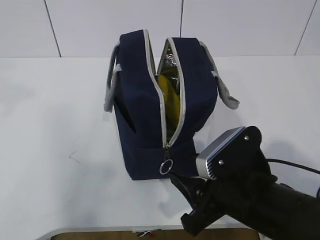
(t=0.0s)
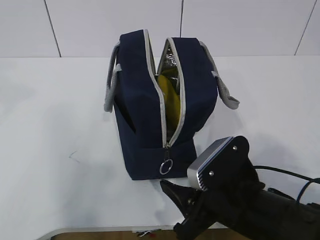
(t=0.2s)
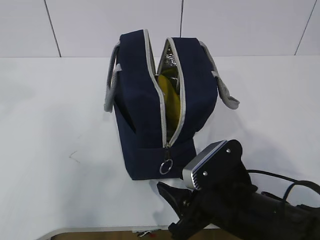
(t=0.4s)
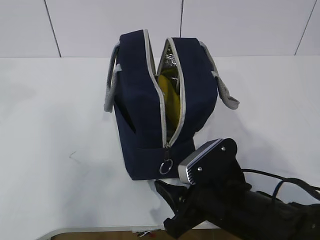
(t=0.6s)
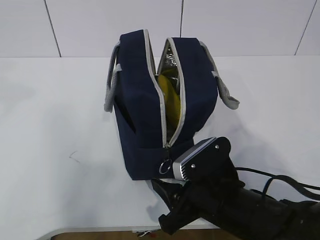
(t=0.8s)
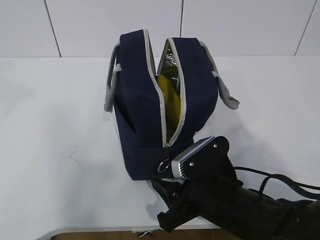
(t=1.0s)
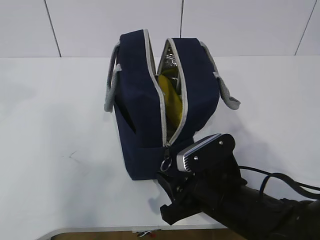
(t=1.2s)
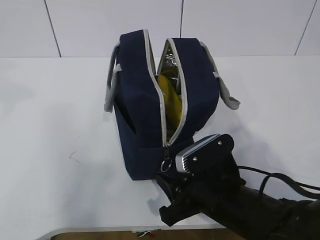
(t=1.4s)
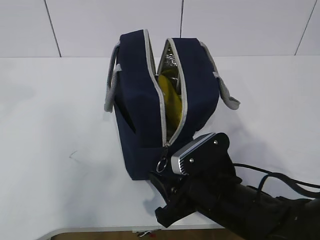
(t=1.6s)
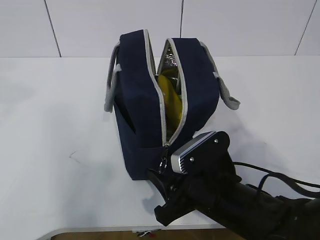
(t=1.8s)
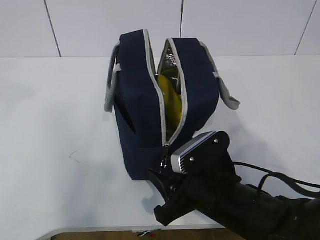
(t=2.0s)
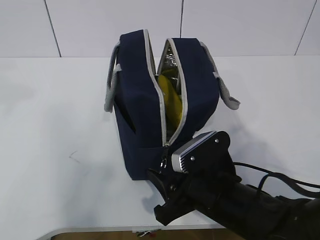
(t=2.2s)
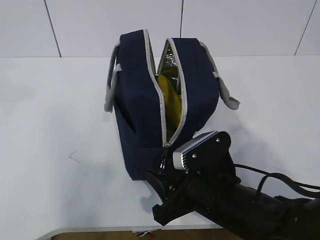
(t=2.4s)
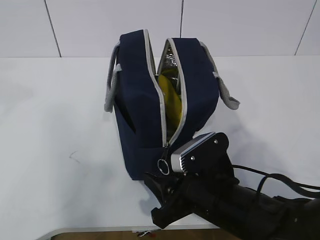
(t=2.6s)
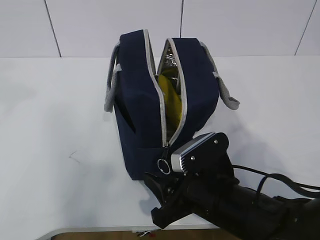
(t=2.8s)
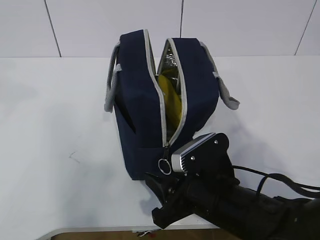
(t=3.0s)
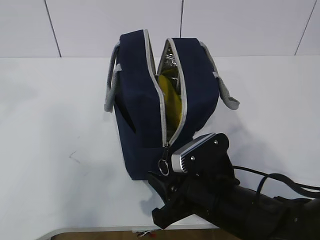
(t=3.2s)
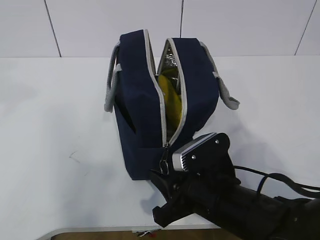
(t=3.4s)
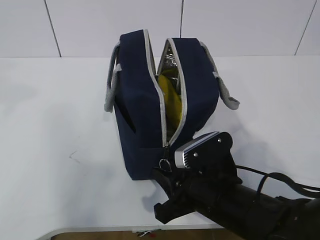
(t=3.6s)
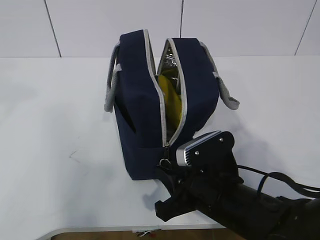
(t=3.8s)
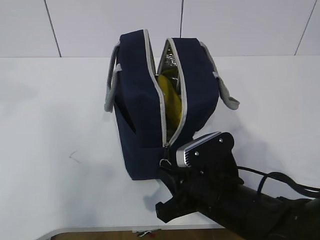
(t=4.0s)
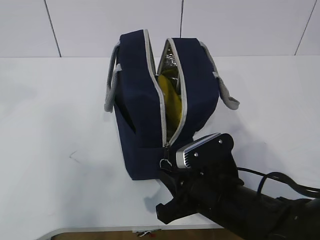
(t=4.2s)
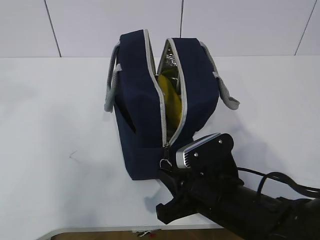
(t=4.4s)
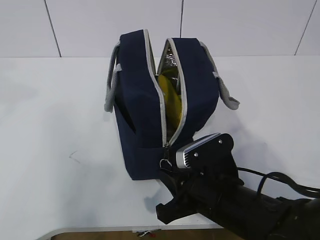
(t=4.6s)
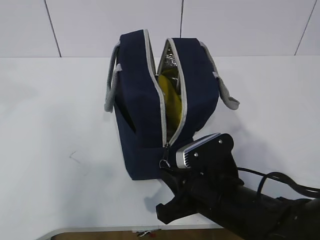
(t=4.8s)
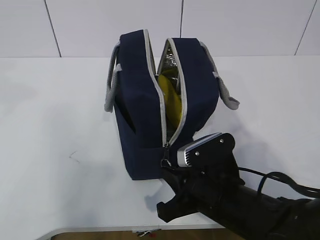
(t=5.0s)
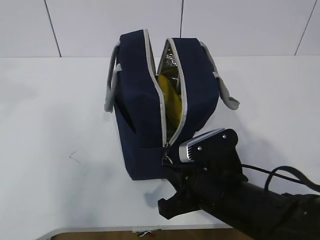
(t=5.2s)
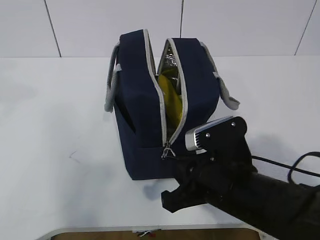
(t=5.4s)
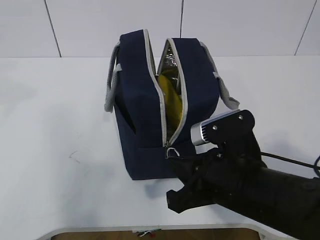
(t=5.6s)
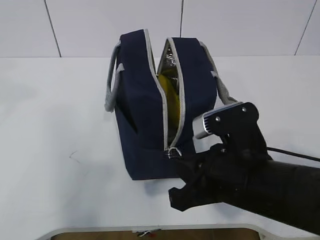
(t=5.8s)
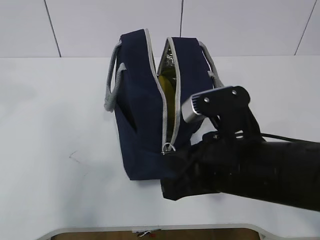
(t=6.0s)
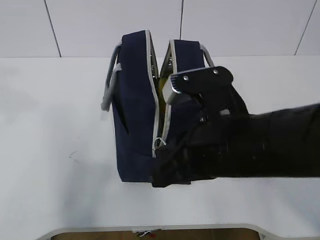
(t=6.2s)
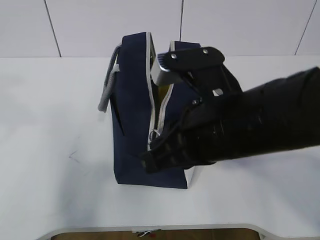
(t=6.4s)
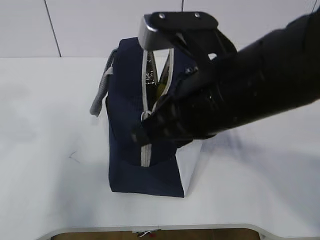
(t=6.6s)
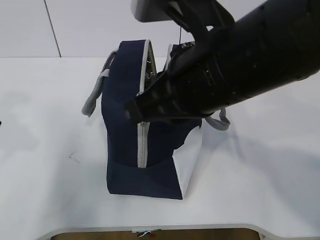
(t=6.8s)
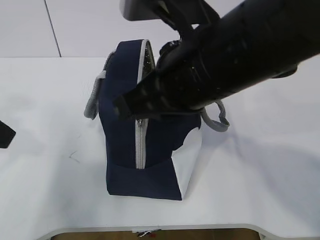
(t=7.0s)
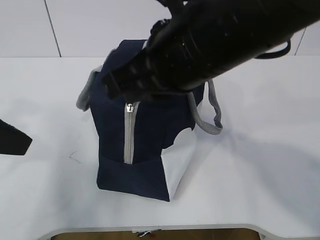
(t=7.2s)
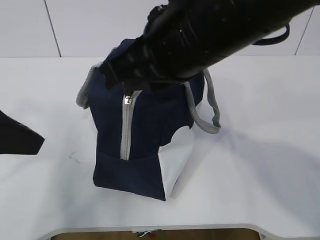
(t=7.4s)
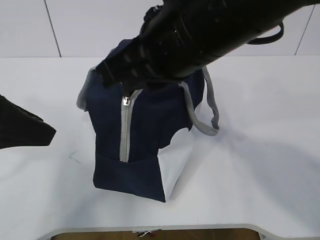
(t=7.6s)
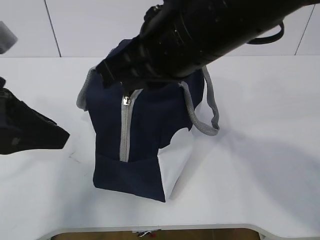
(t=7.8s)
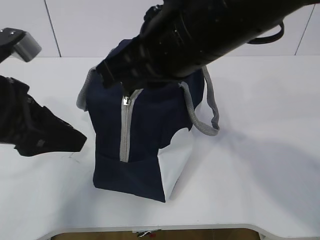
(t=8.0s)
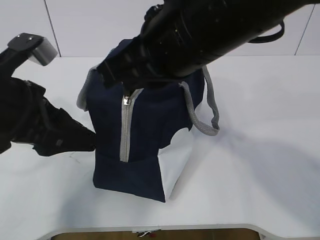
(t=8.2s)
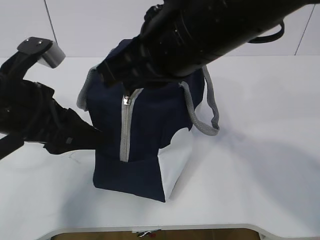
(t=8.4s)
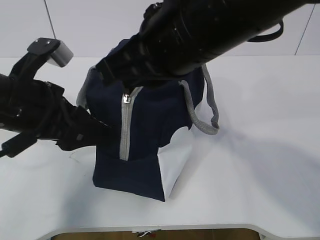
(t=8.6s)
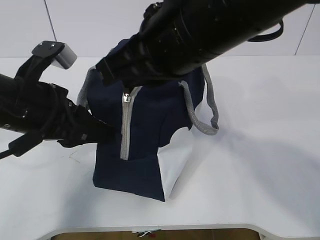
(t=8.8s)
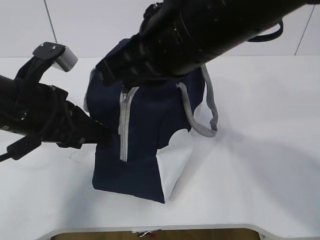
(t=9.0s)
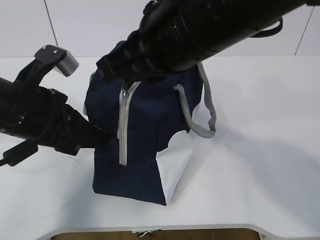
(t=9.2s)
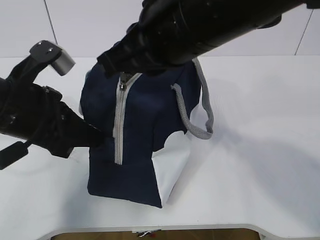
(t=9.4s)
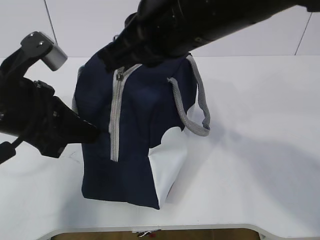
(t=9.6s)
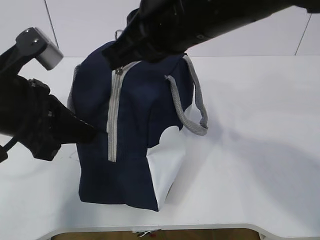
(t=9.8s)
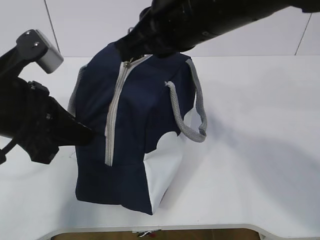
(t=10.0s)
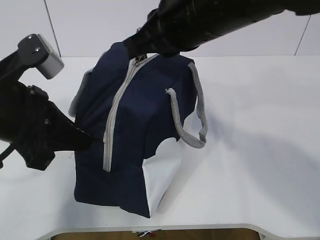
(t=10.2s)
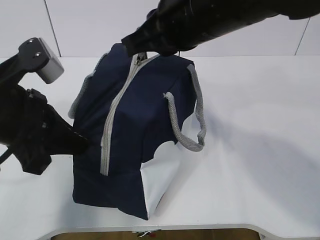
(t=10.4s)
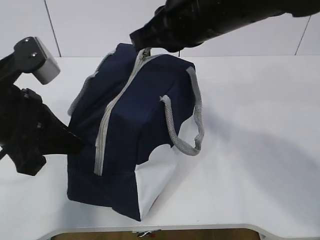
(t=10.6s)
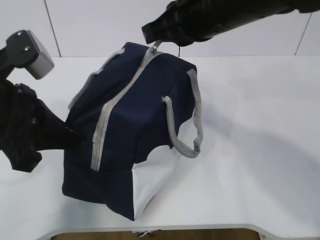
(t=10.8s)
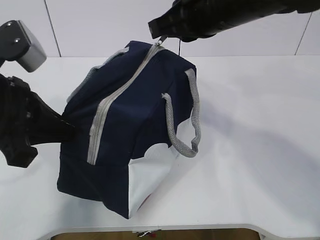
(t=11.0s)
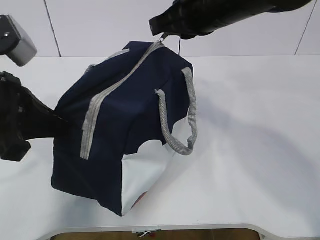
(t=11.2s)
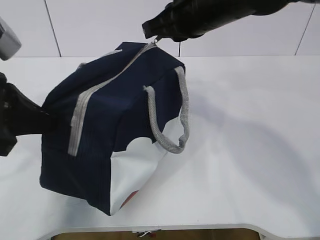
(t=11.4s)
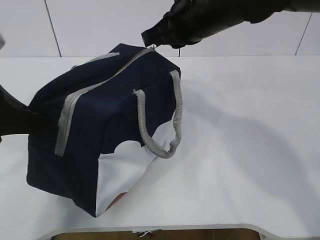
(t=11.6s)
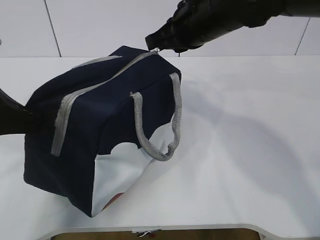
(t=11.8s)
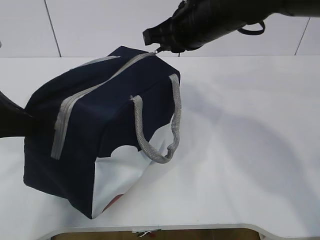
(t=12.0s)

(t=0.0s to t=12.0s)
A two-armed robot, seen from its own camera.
Step, t=4.4s - t=8.0s: Pull the zipper with your right hand.
Step, t=8.2s - t=8.8s: Grab the lunch bag with your left hand.
t=0.0s - t=1.6s: The right gripper moves roughly 5 cm.
t=1.6s - t=3.0s: The two grippers keep their place.
t=3.0s - t=4.4s: The right gripper closes its fingers.
t=4.4s - t=6.0s: The right gripper heads upward, covering some 10 cm.
t=6.0s - t=7.6s: The right gripper moves upward, about 15 cm; the left gripper goes roughly 15 cm downward.
t=7.6s - t=9.0s: The left gripper moves downward, to the right and forward, about 10 cm, and closes its fingers.
t=9.0s - t=10.4s: The right gripper shifts about 5 cm forward.
t=10.4s - t=12.0s: The right gripper goes approximately 10 cm forward. The left gripper is displaced to the left by roughly 5 cm.

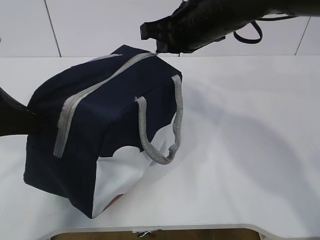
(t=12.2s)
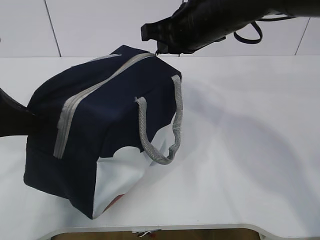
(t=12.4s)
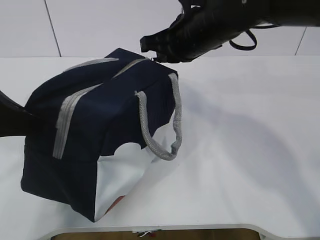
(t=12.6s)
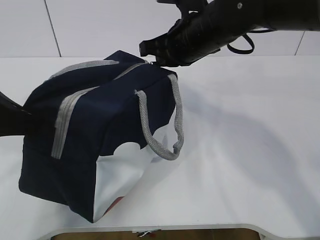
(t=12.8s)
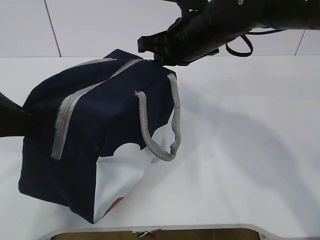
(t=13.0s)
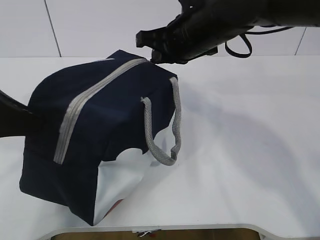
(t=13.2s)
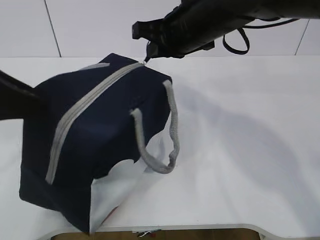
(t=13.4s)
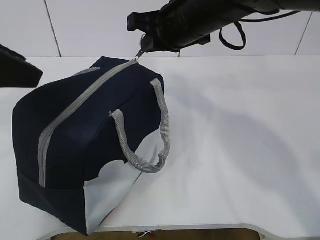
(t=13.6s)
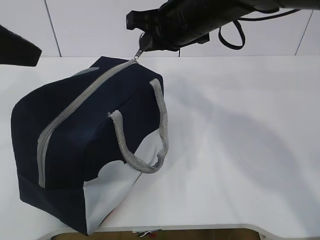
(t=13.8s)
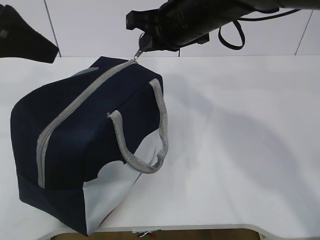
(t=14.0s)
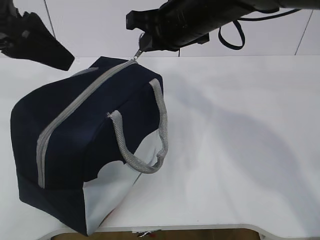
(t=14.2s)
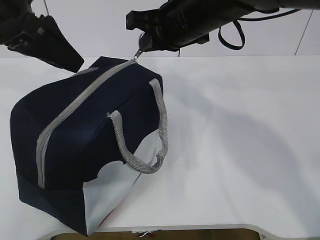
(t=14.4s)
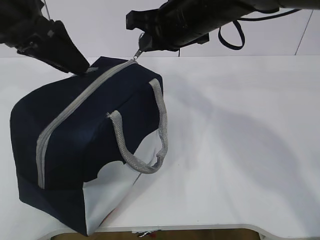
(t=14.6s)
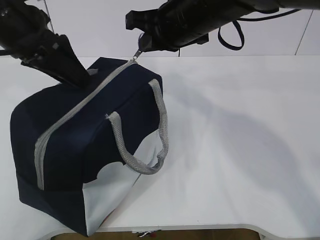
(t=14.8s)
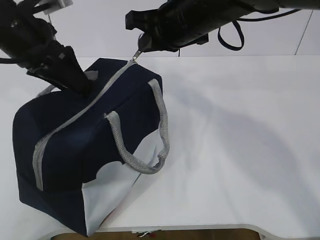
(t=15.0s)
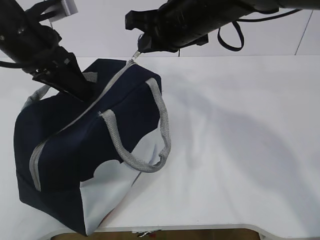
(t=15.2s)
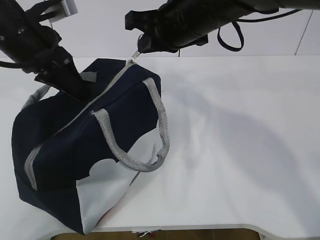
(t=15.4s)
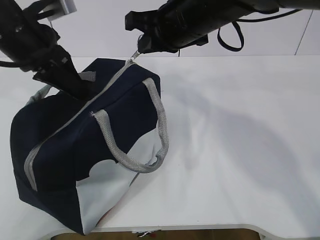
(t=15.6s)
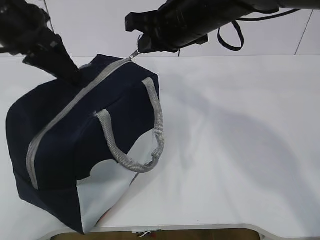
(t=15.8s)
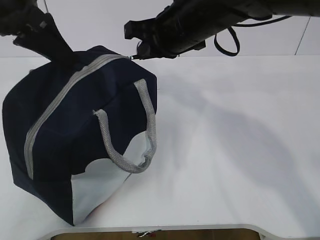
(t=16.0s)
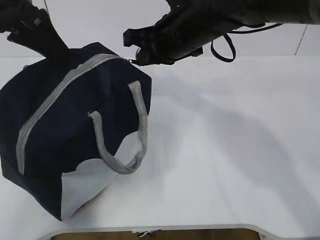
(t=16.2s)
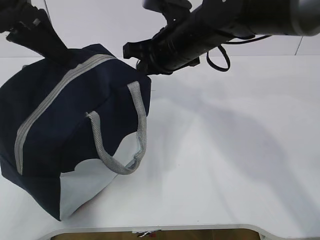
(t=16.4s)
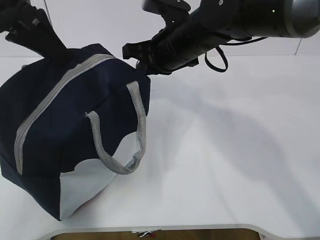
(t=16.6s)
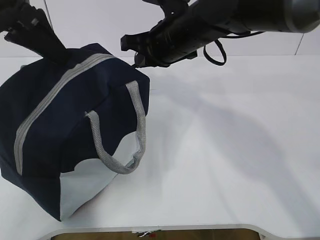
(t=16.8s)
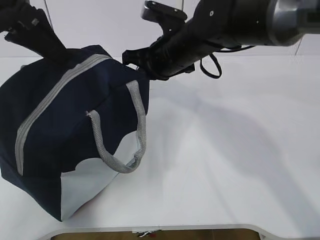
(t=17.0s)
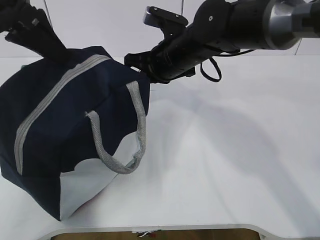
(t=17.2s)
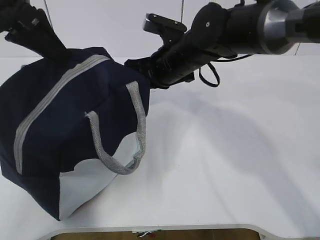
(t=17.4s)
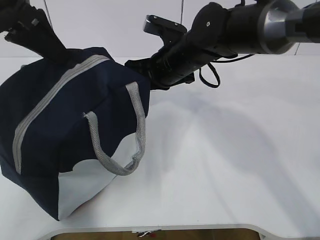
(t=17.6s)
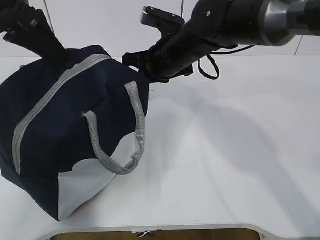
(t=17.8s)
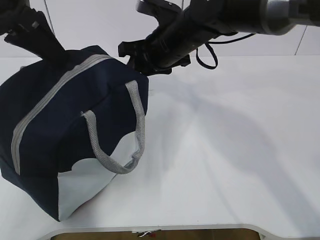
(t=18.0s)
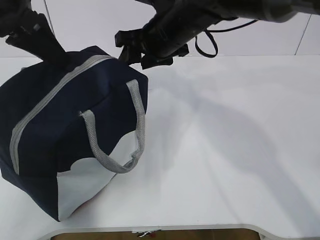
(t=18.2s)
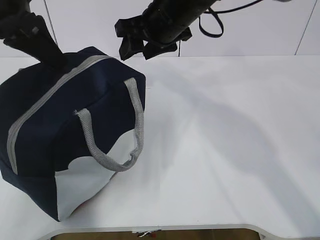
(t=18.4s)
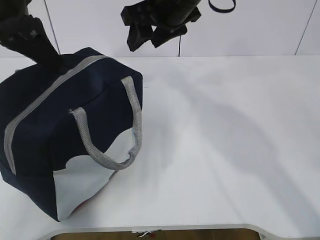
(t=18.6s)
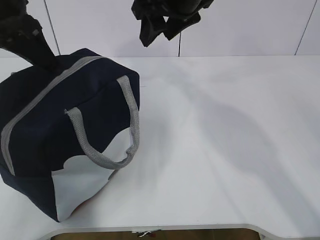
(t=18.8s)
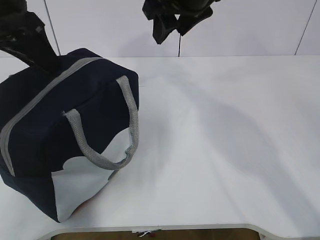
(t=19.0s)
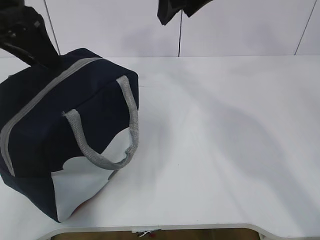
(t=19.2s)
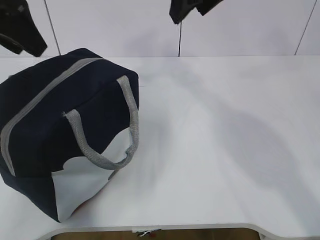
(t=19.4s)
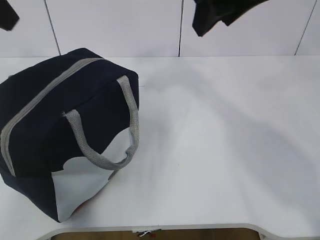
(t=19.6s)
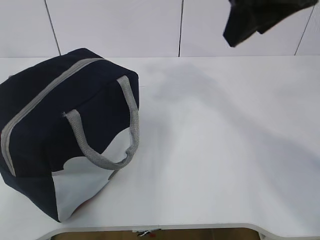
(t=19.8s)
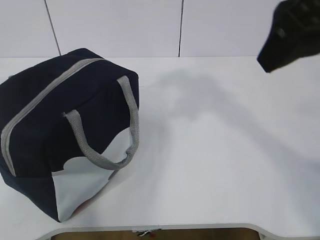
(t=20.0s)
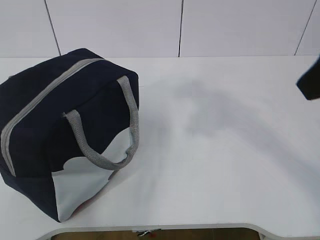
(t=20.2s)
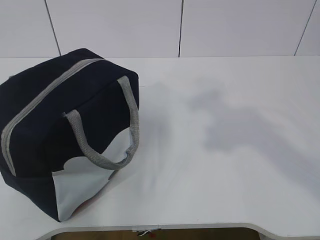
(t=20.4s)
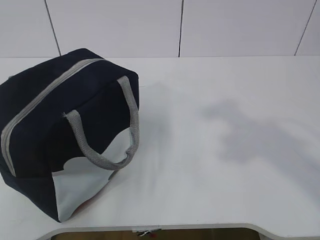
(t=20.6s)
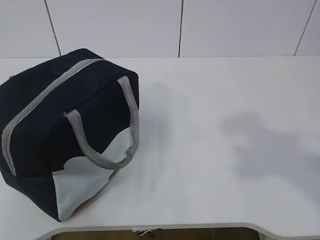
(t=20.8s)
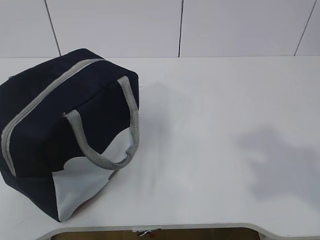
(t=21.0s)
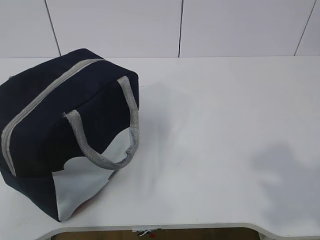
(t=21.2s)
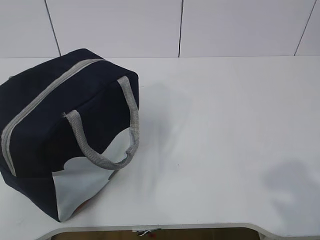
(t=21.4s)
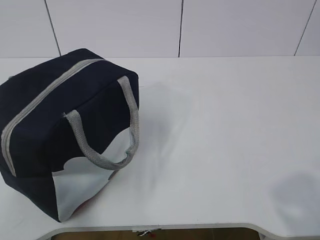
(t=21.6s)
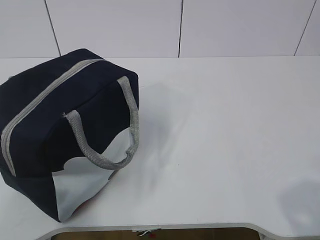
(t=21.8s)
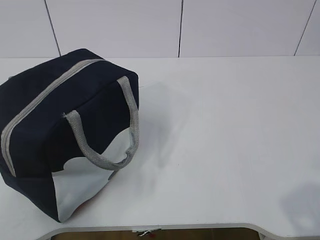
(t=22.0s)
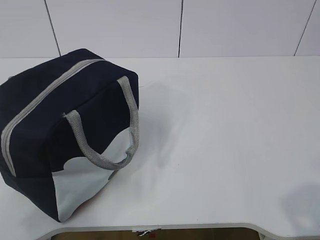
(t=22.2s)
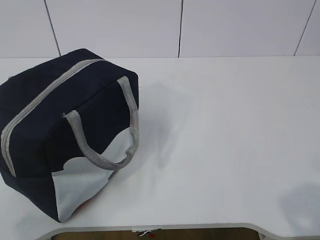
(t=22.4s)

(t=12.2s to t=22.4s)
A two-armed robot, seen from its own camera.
t=12.2s - t=13.6s: The left gripper shifts some 5 cm upward, and opens.
t=13.6s - t=15.2s: The left gripper is displaced forward and downward by some 15 cm.
t=15.2s - t=16.6s: The left gripper moves upward, about 5 cm, and closes; the right gripper ends up about 5 cm from where it was.
t=16.6s - t=18.0s: The right gripper opens up.
t=18.0s - t=19.4s: The left gripper opens; the right gripper is displaced upward by roughly 15 cm.
t=19.4s - t=21.0s: The right gripper shifts roughly 40 cm backward and to the right, while the left gripper travels backward by approximately 35 cm.
t=21.0s - t=22.4s: The left gripper travels downward by about 10 cm.
